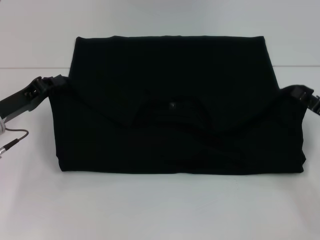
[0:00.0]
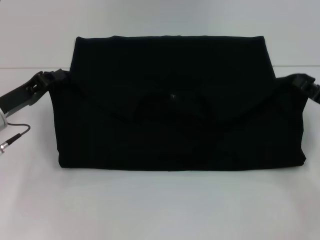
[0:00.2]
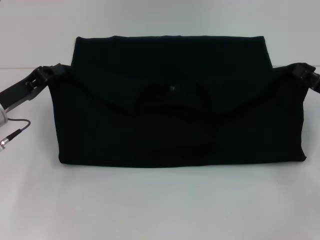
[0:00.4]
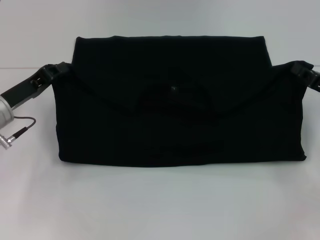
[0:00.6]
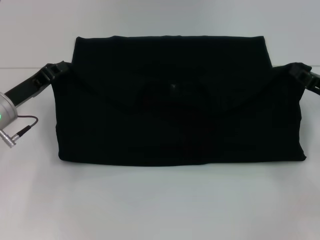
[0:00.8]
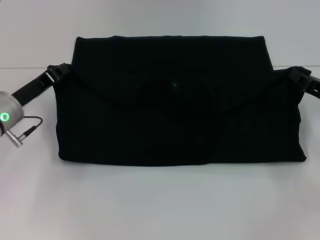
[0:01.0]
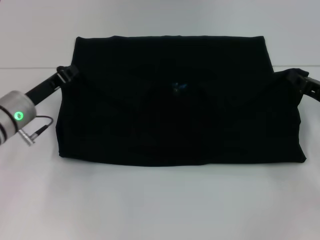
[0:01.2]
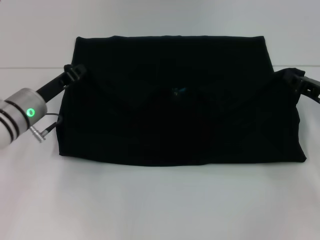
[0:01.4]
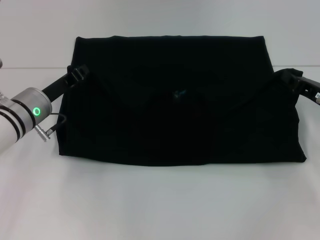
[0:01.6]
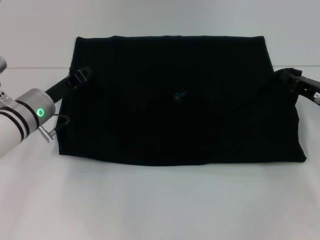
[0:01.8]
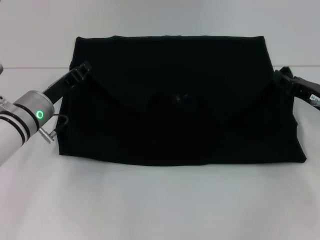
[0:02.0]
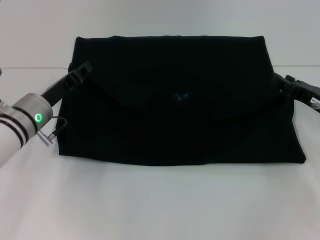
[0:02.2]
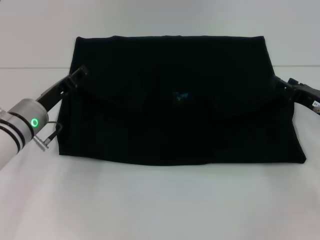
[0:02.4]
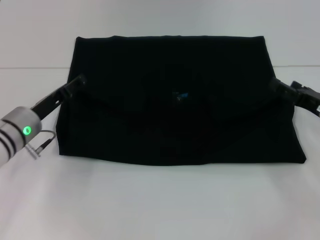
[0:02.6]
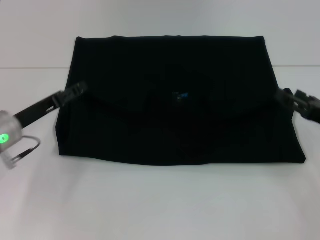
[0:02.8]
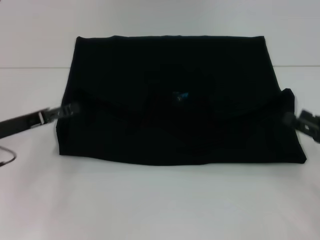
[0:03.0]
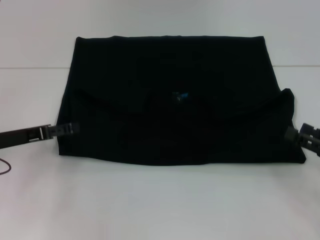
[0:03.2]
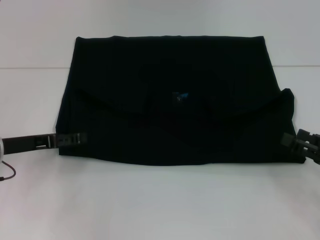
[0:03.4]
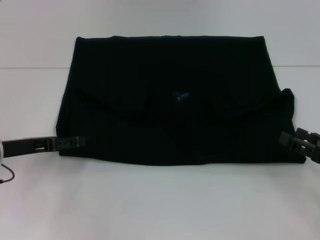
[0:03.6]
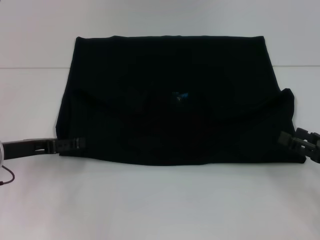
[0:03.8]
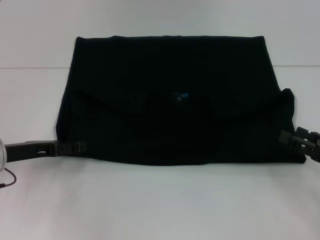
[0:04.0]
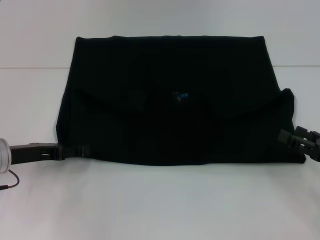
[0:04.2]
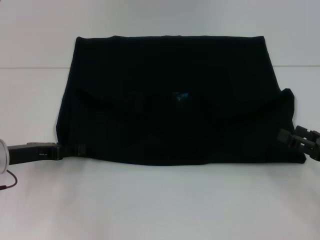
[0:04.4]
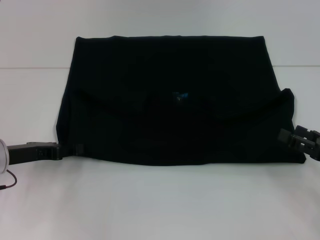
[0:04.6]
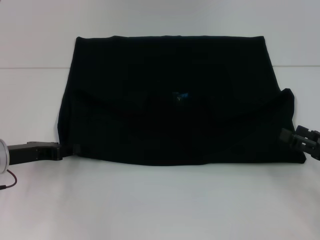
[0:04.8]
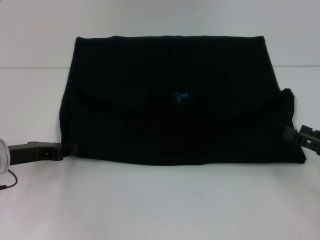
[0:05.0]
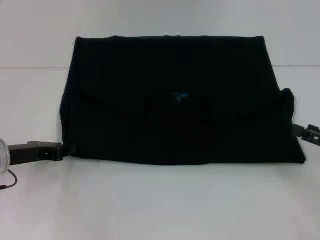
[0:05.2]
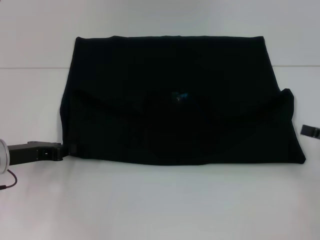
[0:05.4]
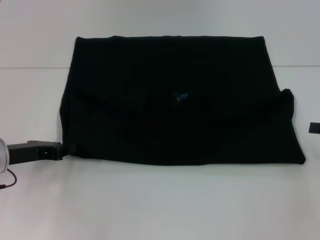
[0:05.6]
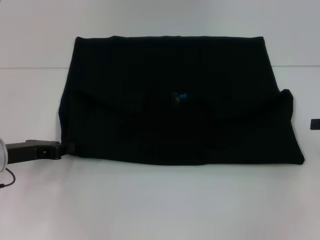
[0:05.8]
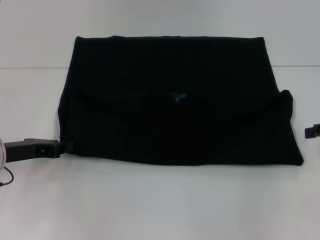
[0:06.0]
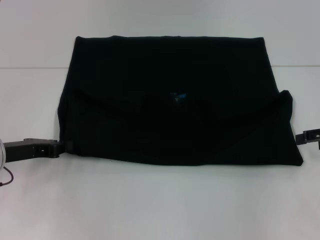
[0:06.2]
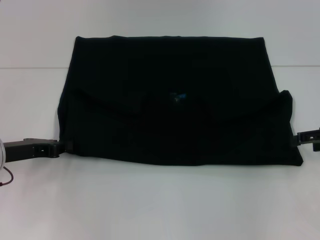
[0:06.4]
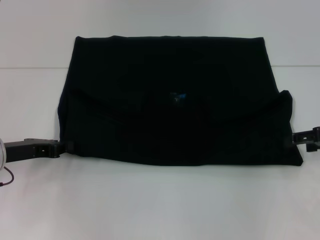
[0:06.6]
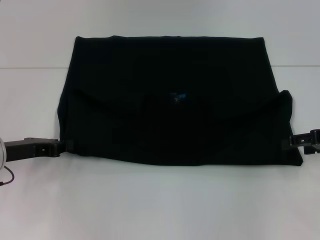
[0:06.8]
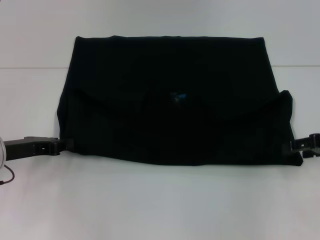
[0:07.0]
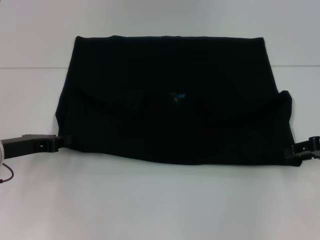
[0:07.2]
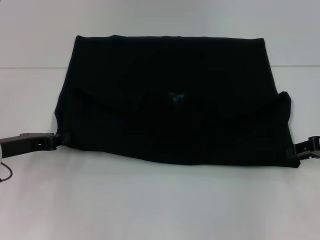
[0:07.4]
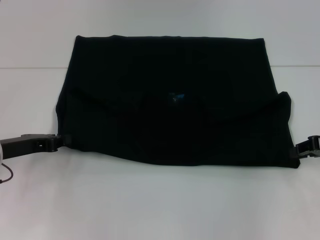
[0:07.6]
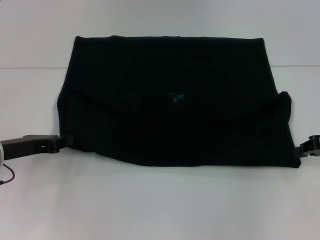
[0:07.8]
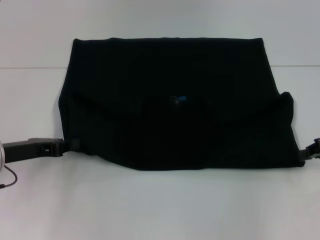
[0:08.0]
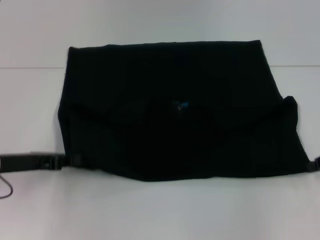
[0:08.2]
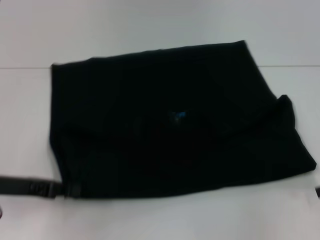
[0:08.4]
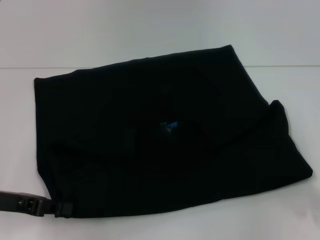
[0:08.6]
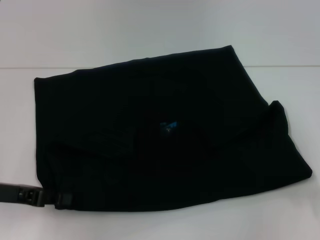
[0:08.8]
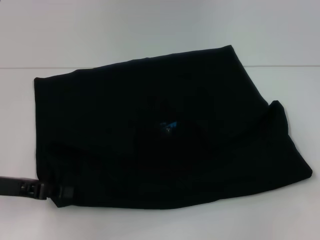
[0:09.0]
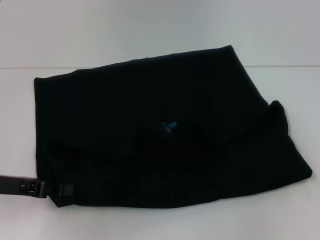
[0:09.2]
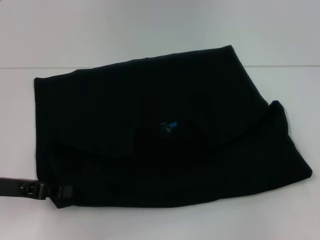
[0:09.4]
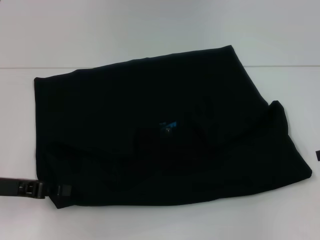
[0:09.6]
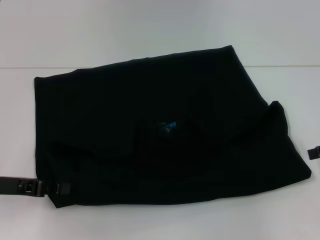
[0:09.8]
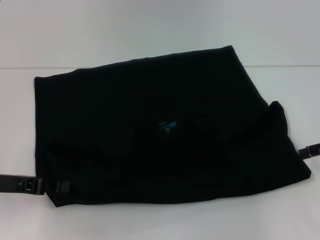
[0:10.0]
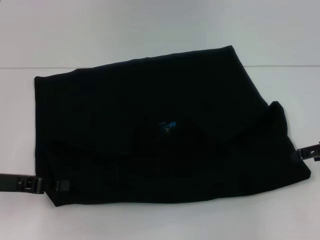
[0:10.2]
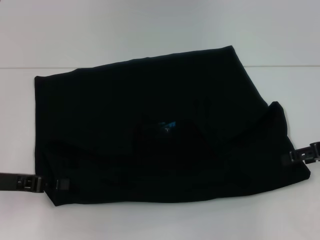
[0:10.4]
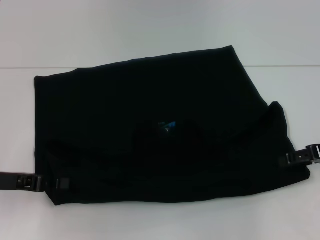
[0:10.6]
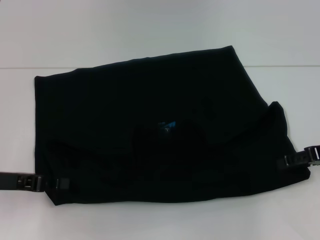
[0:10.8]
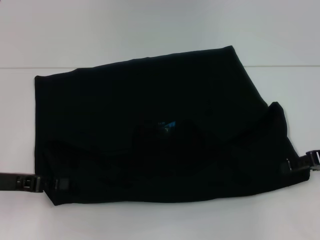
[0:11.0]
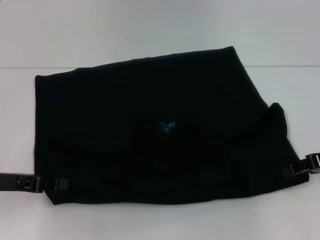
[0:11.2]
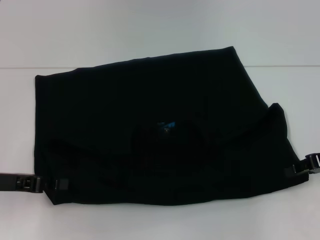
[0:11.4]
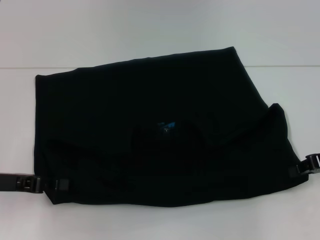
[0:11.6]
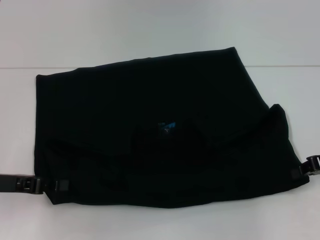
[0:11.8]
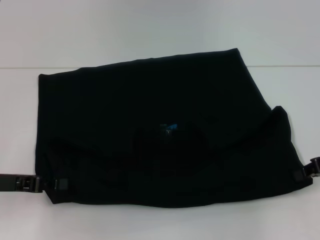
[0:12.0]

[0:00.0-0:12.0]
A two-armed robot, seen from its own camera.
Step, 0:00.0 to 0:02.6: Fold the clothes with your left hand.
Step, 0:00.0 to 0:02.6: Fold the clothes with your right hand.
0:00.0 to 0:01.6: The left gripper goes about 5 cm to the right. The right gripper travels forward by some 5 cm.
0:01.6 to 0:03.0: The right gripper moves backward, approximately 10 cm, and opens up, while the left gripper goes roughly 10 cm to the left and backward, and opens its fingers.
0:03.0 to 0:04.4: The grippers make only small movements.
0:04.4 to 0:06.0: The left gripper closes its fingers. The right gripper heads upward and forward, covering some 10 cm.
0:06.0 to 0:07.6: The right gripper closes up.
0:07.6 to 0:09.0: The right gripper changes place by approximately 5 cm, and closes its fingers.
0:09.0 to 0:10.4: The right gripper changes place by approximately 5 cm, and opens its fingers.
0:10.4 to 0:12.0: The right gripper closes its fingers.

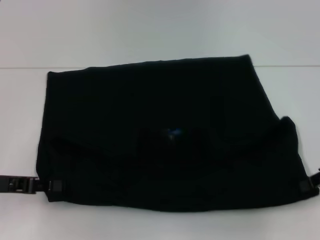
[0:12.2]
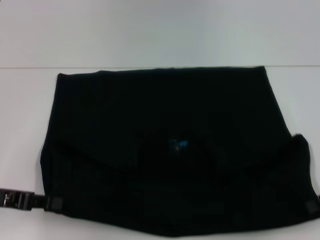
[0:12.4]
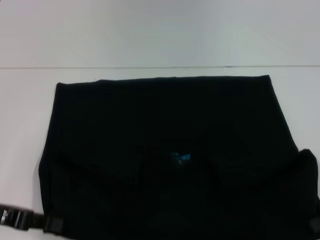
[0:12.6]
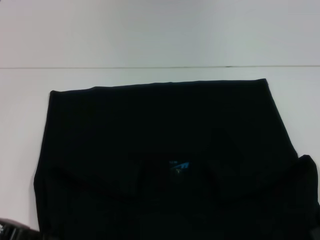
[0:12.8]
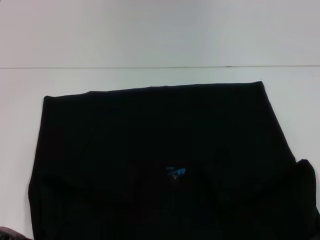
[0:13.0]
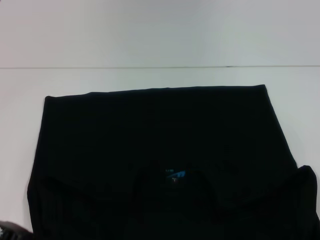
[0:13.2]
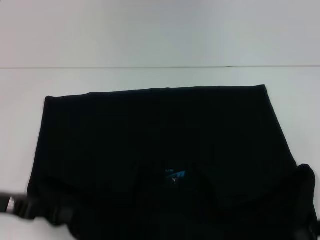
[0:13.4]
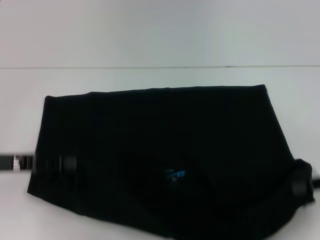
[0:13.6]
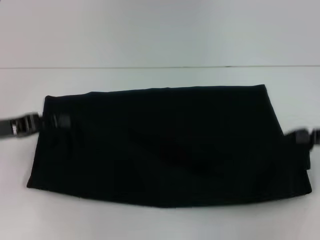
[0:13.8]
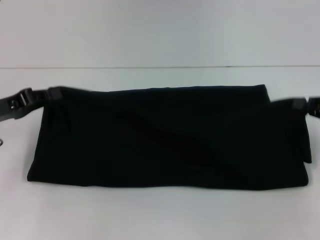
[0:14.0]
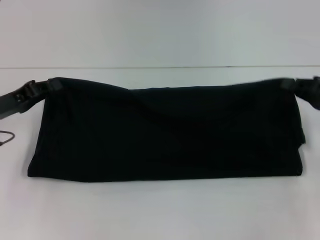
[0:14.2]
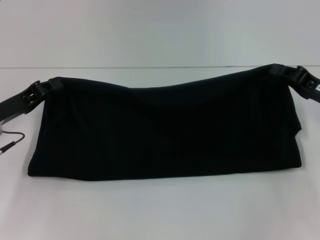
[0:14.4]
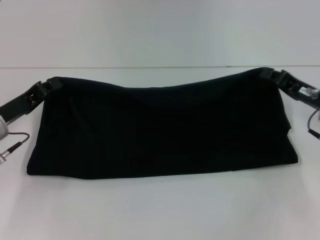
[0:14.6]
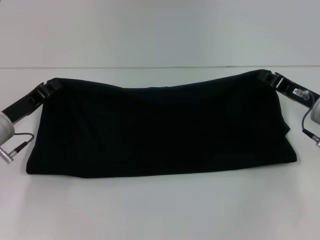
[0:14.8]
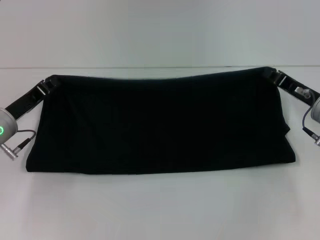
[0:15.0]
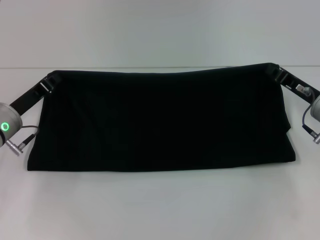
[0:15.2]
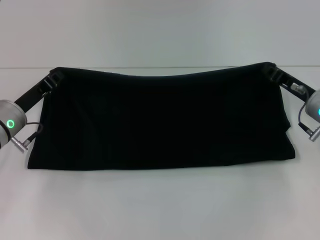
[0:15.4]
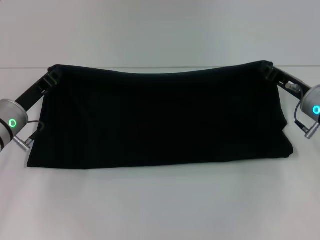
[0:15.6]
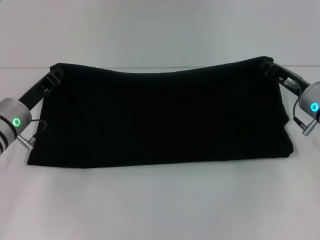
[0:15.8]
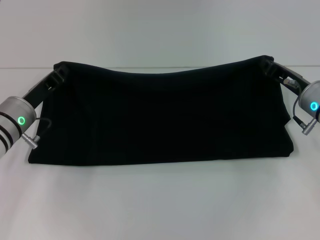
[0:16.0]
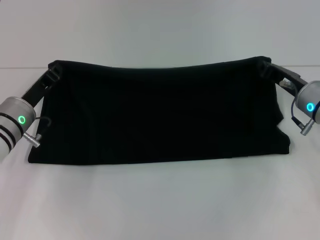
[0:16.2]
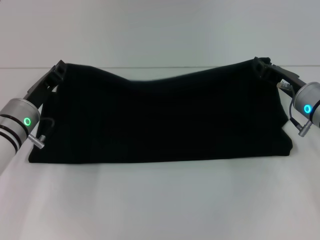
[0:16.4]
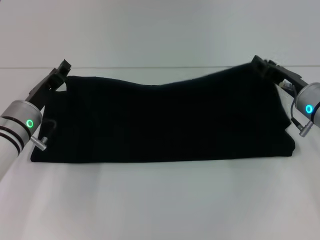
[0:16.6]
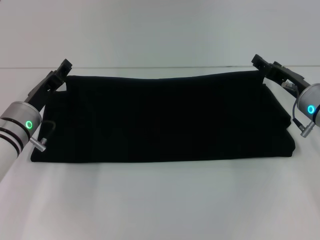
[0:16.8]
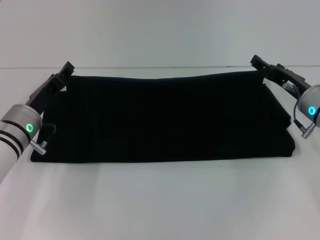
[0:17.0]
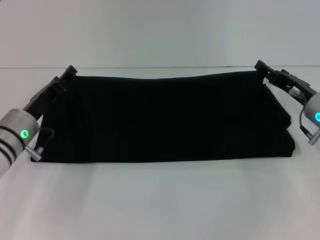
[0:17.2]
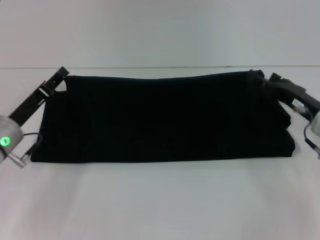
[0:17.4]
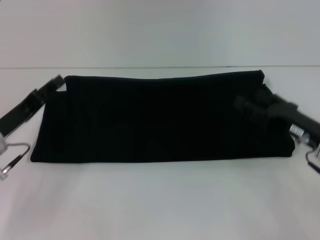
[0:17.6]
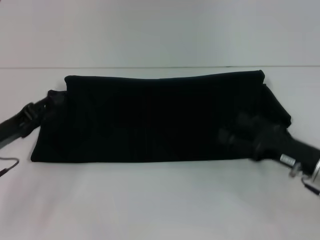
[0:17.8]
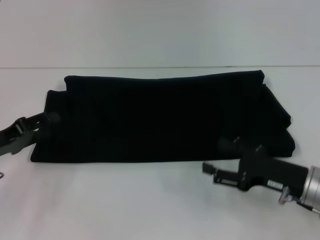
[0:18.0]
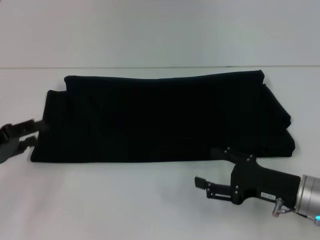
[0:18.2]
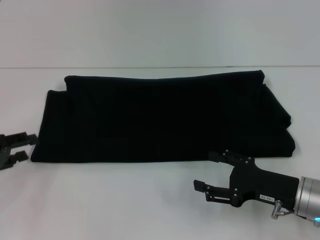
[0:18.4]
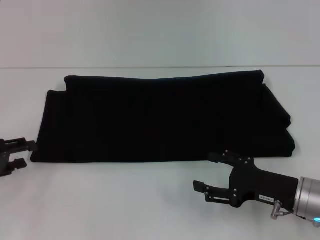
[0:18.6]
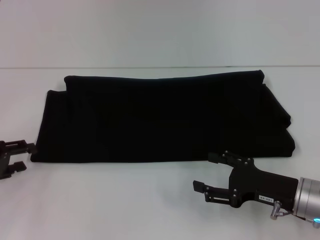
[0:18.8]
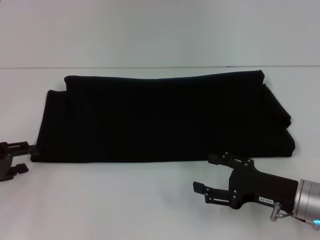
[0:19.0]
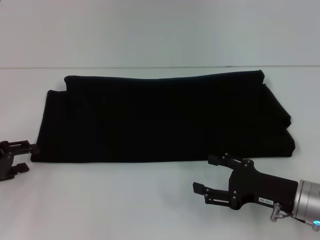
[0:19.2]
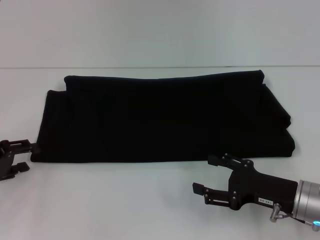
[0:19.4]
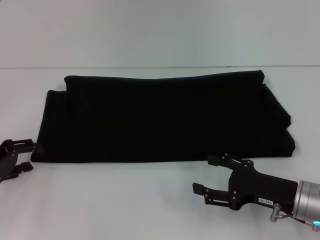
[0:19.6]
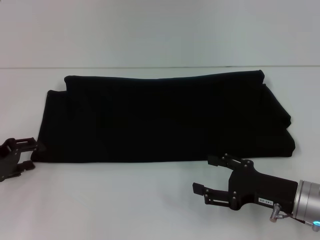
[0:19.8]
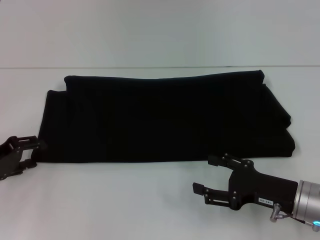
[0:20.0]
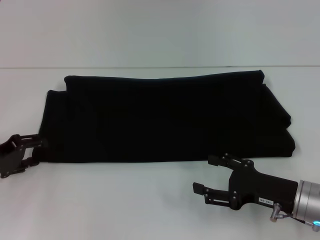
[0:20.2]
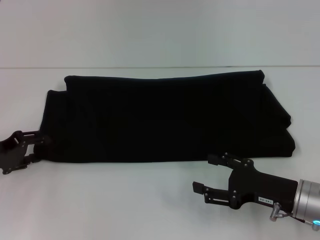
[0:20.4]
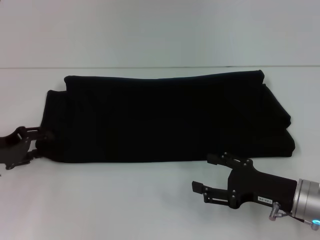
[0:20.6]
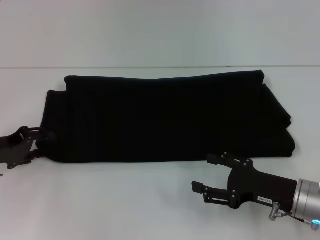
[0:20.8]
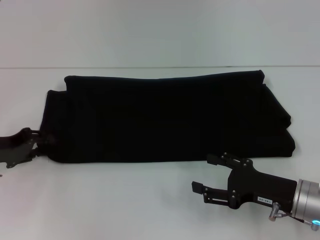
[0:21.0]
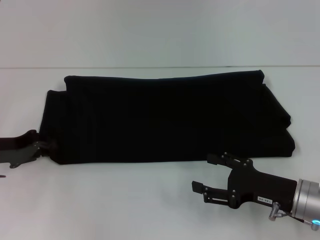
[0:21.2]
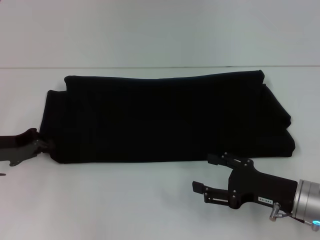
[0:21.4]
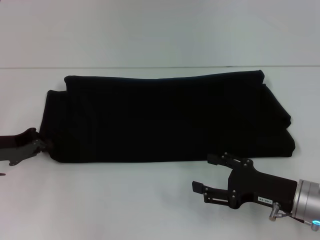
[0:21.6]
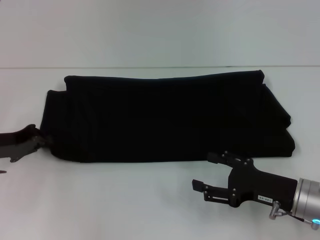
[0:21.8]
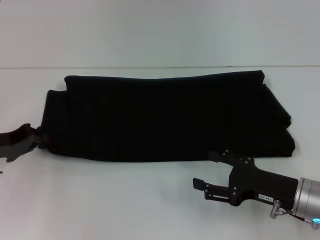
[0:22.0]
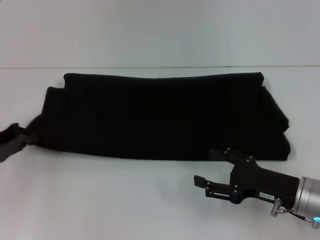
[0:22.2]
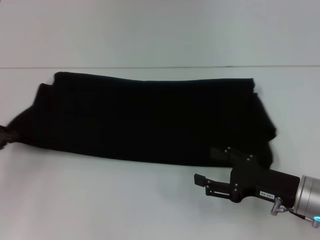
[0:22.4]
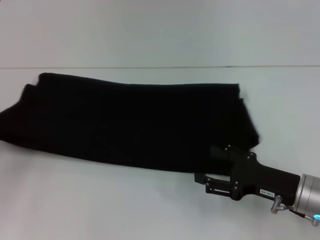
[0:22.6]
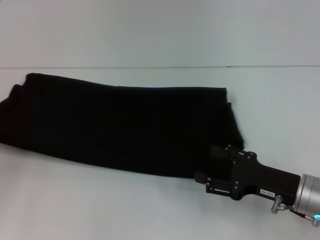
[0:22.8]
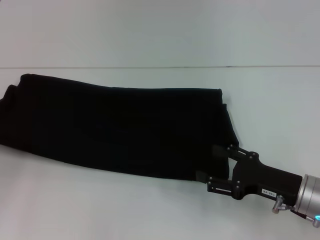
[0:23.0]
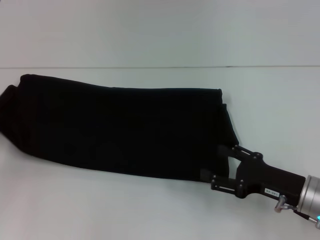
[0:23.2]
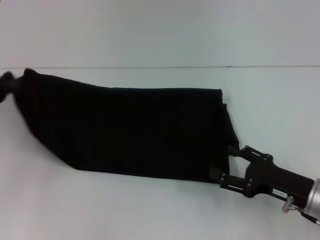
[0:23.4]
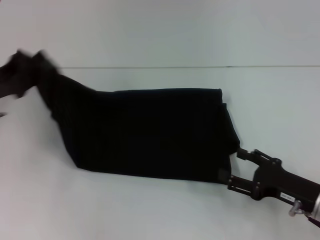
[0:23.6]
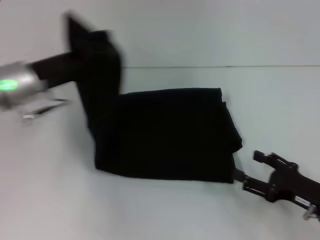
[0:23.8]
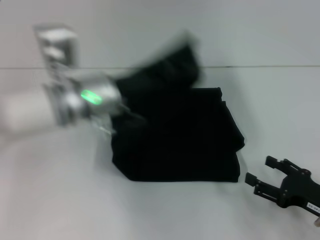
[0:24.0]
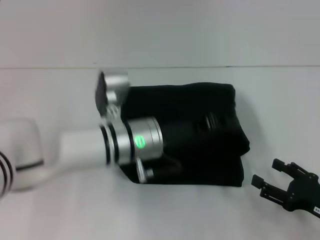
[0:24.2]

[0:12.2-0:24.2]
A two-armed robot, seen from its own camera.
Step, 0:12.6 to 0:17.0: Fold the clothes with your right hand.
0:13.8 to 0:15.2: The right gripper is displaced to the left, forward and downward by roughly 15 cm; the left gripper is displaced downward and forward by about 10 cm.
0:15.2 to 0:16.6: There are only small adjustments of the grippers.
0:16.6 to 0:18.2: The right gripper heads backward, covering some 15 cm, and opens. Meanwhile the left gripper travels to the left and backward by approximately 15 cm, and opens its fingers.
0:18.2 to 0:21.2: The grippers stay close to where they were, moving slightly.
0:21.2 to 0:22.6: The left gripper travels to the left by some 5 cm, and closes up.
0:22.6 to 0:24.2: The left gripper goes roughly 30 cm to the right, while the right gripper moves to the right, some 5 cm.
